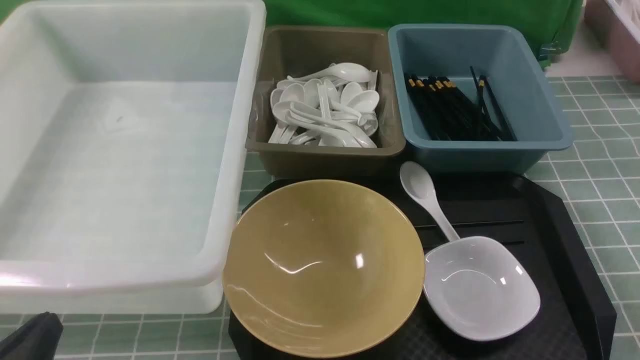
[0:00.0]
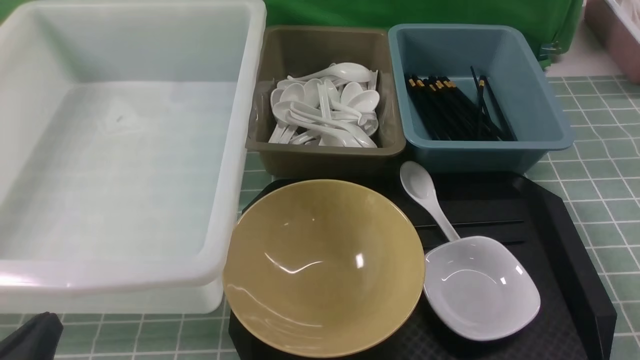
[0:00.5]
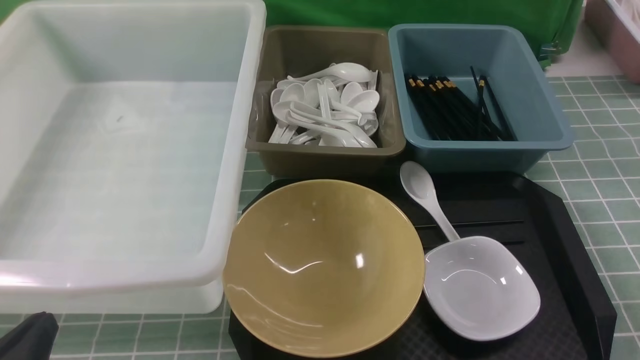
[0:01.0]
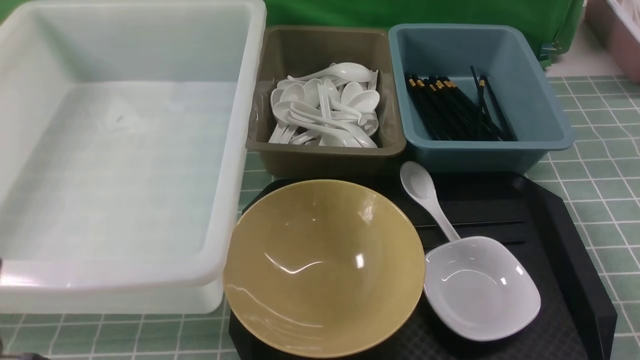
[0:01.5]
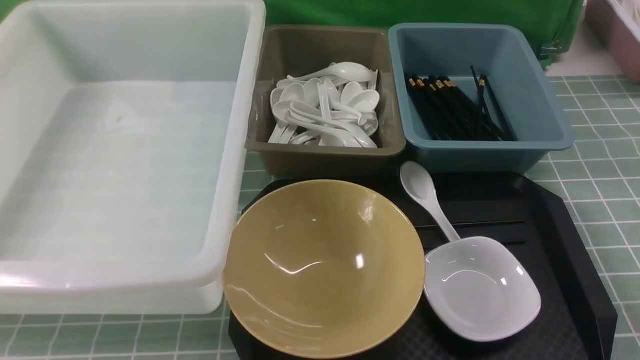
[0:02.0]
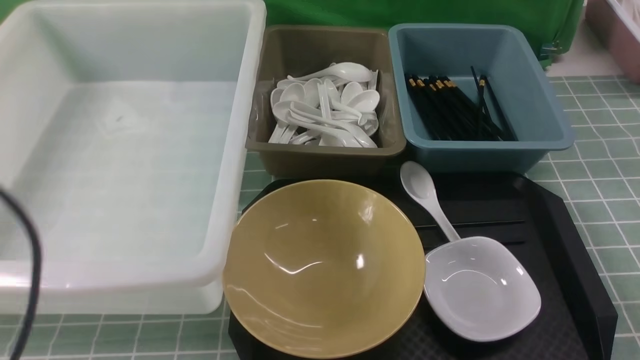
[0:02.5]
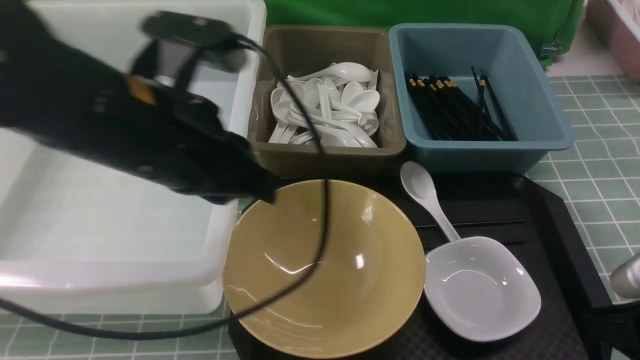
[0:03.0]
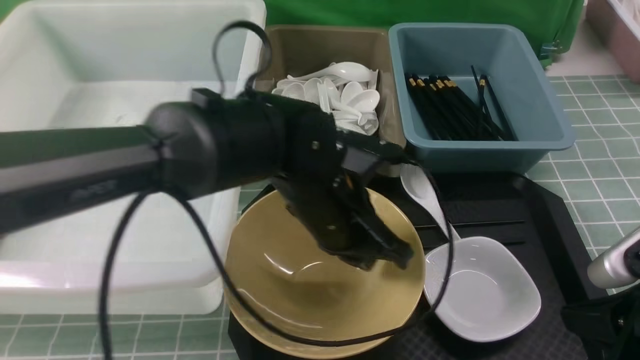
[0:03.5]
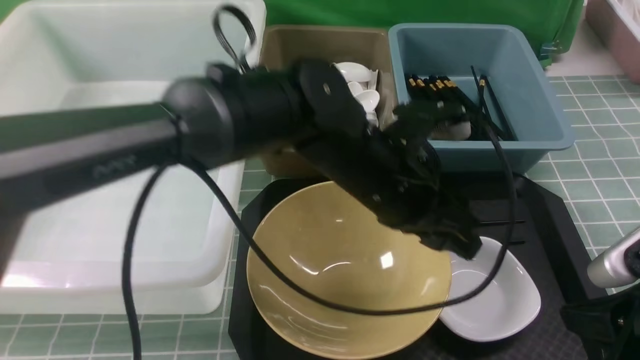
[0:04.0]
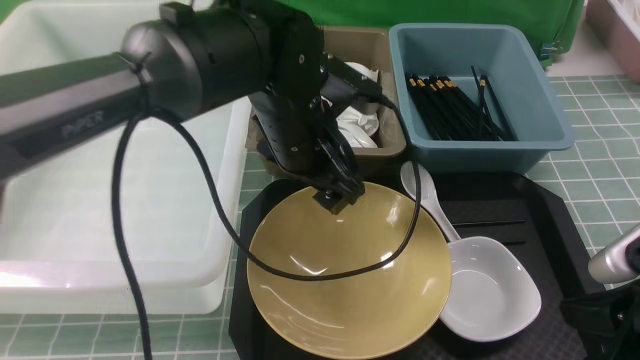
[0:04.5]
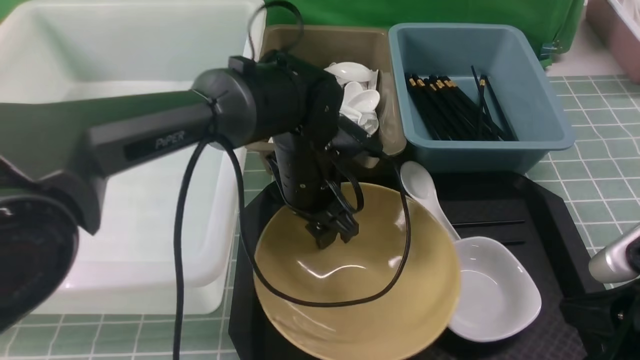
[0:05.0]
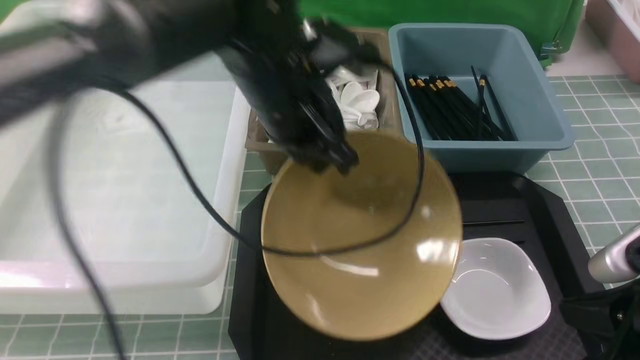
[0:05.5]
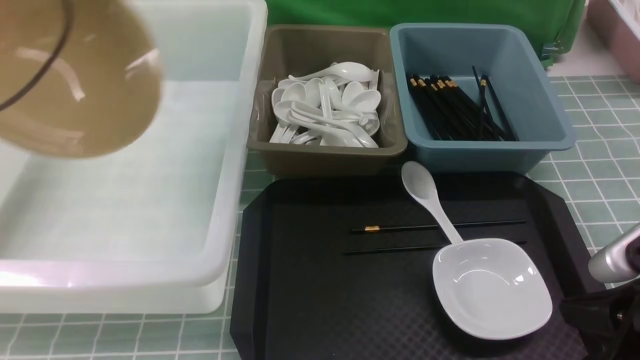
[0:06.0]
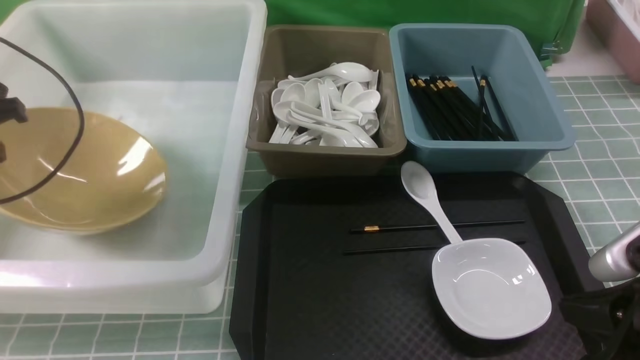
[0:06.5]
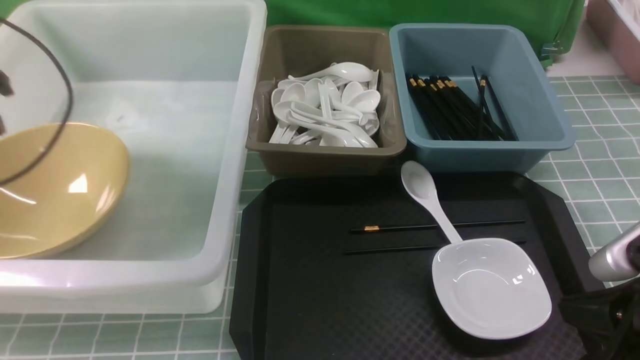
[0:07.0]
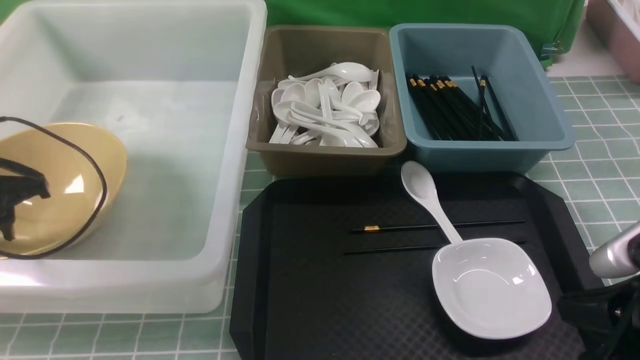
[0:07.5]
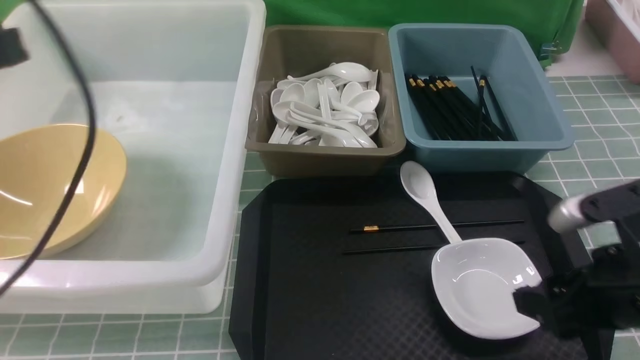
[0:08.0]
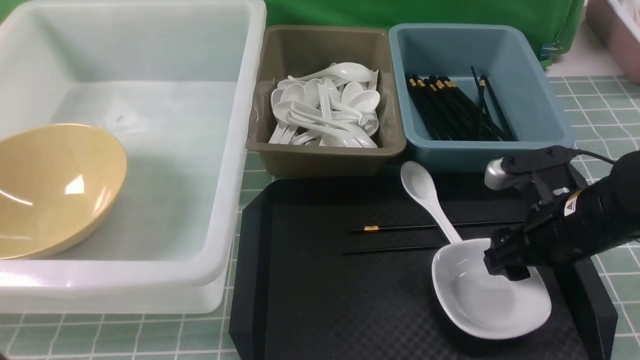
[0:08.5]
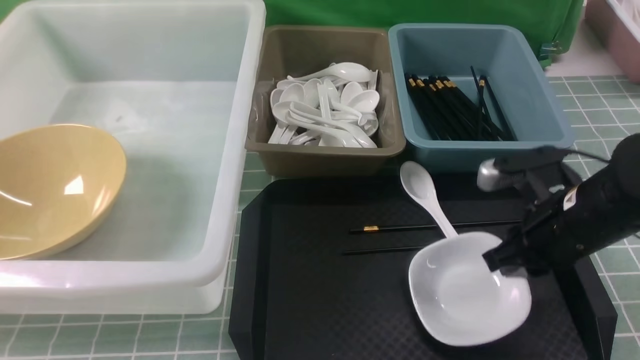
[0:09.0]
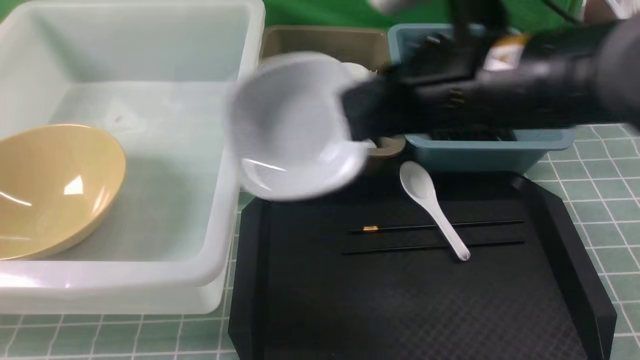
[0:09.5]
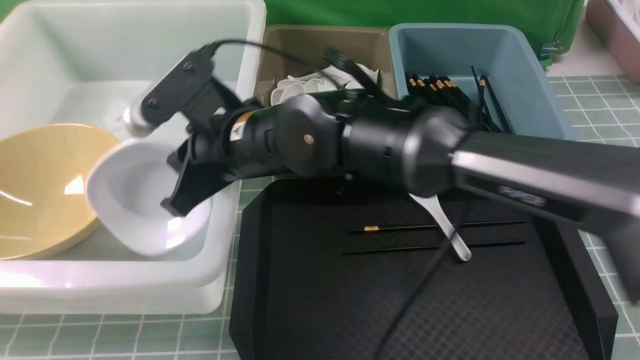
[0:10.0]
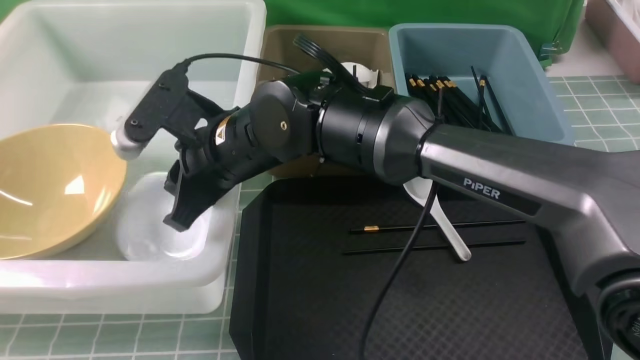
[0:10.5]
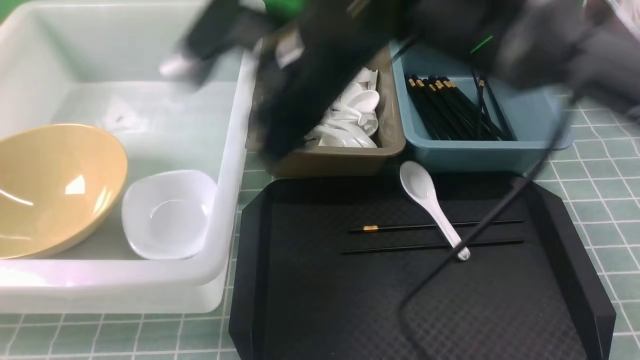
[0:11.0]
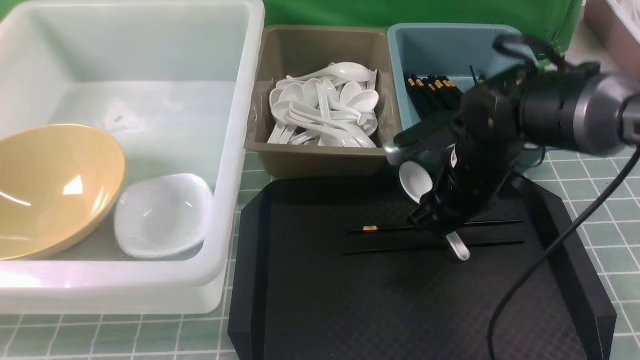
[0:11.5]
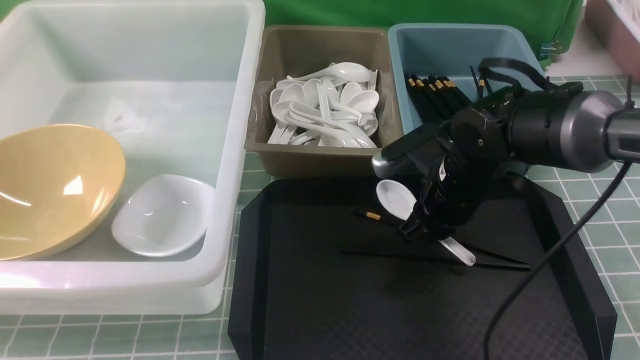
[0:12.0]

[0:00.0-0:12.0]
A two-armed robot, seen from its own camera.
Task of the whole recording: on blue table put chopsticks spoon bowls plates into blue grey white boxes.
Step, 0:00.0 to 0:05.0: use the left arm to grab the yellow noodle bowl on the left.
Step, 0:05.5 to 0:06.5: use the left arm to put the noodle bowl into the large storage box on the left.
Step, 0:07.0 to 0:09.0: use the right arm to grab the plate.
Step, 0:09.5 to 0:10.5: use the right arm to put the plate into the large storage box on the left.
Step, 0:11.0 to 0:12.0: use the right arm to grab the soup spoon in the middle.
0:00.0 to 0:02.0: The left gripper goes about 15 cm upward.
0:02.0 to 0:04.0: The right gripper goes roughly 10 cm forward and to the left, while the left gripper travels to the right and forward by some 40 cm, and opens its fingers.
0:04.0 to 0:06.0: The left gripper heads to the left, covering approximately 35 cm, and closes its fingers.
0:06.0 to 0:08.0: The right gripper travels forward by about 5 cm, and opens its fingers. The left gripper heads backward, covering roughly 20 cm, and opens, then closes once more.
0:08.0 to 0:10.0: The right gripper is displaced to the left by roughly 30 cm, and closes. Meanwhile the left gripper shifts some 15 cm backward and downward.
0:10.0 to 0:12.0: The right gripper heads to the right, covering some 20 cm.

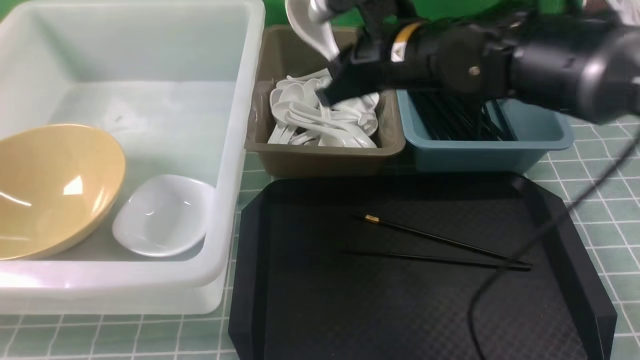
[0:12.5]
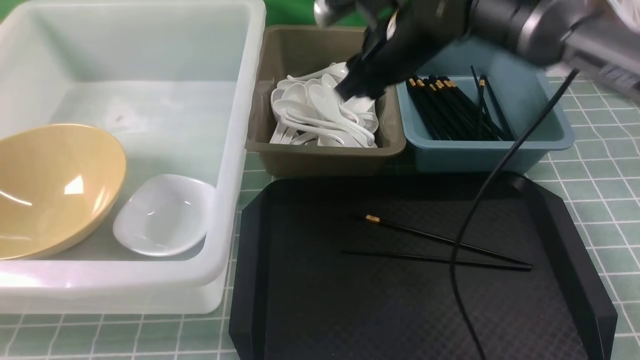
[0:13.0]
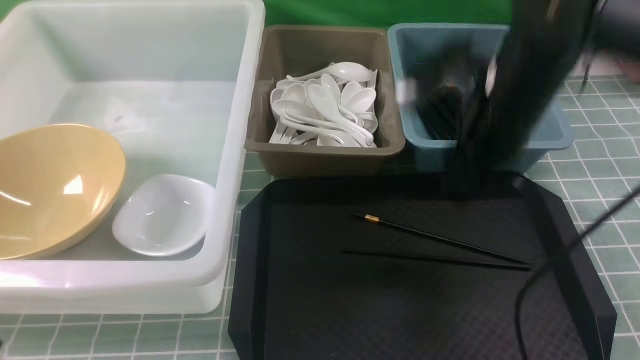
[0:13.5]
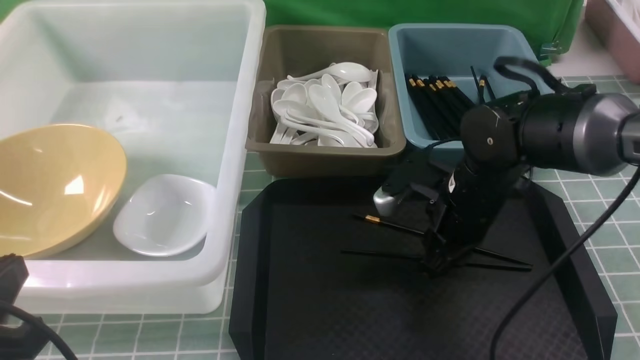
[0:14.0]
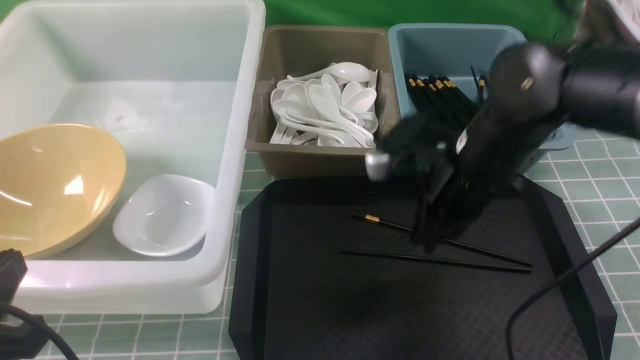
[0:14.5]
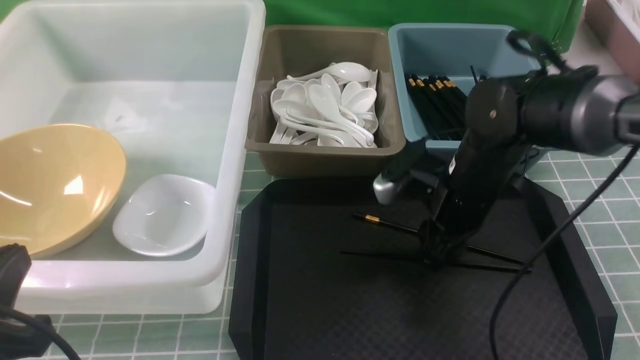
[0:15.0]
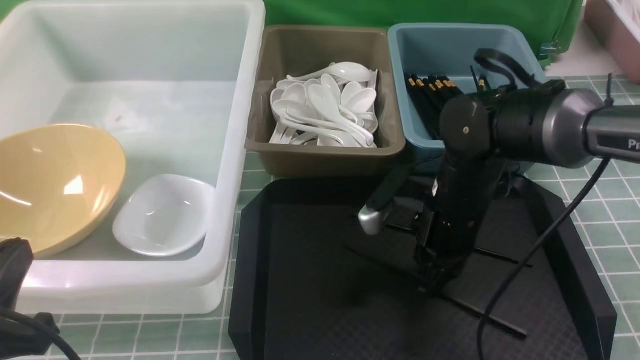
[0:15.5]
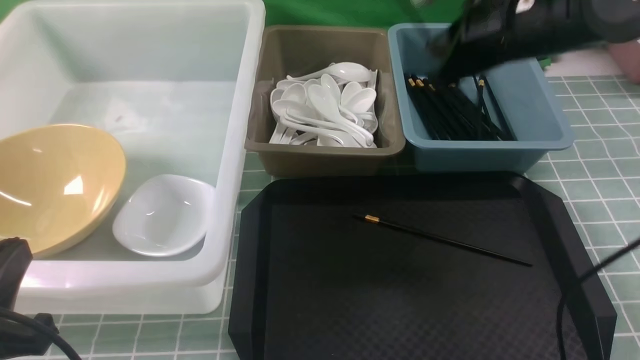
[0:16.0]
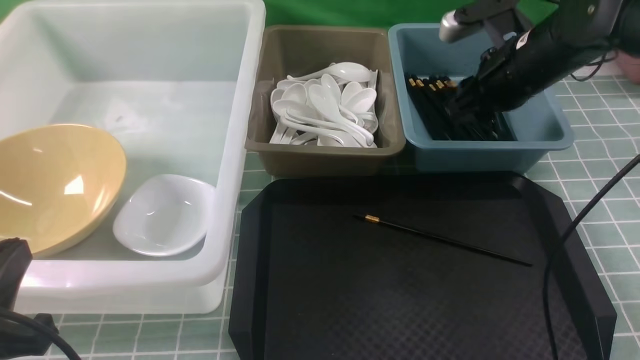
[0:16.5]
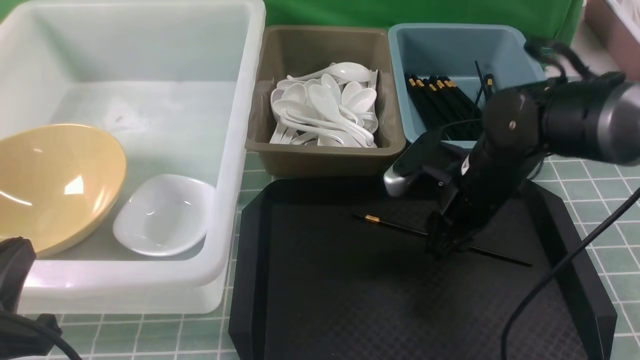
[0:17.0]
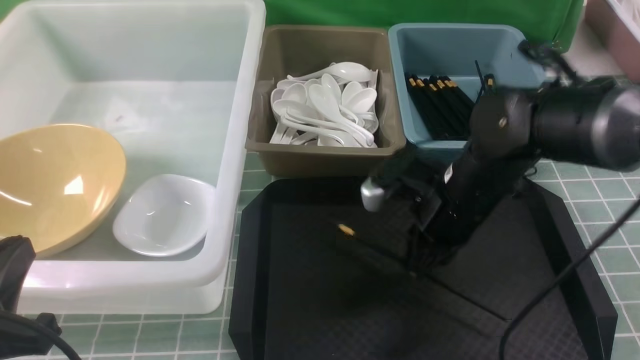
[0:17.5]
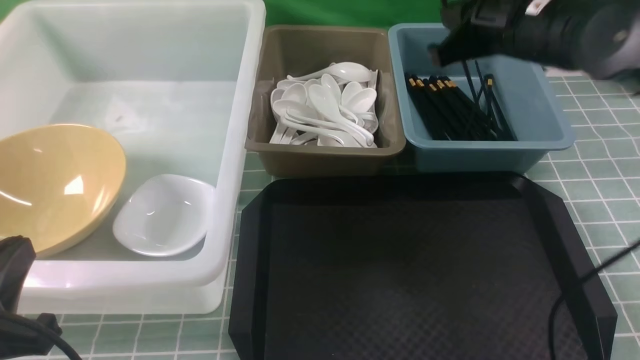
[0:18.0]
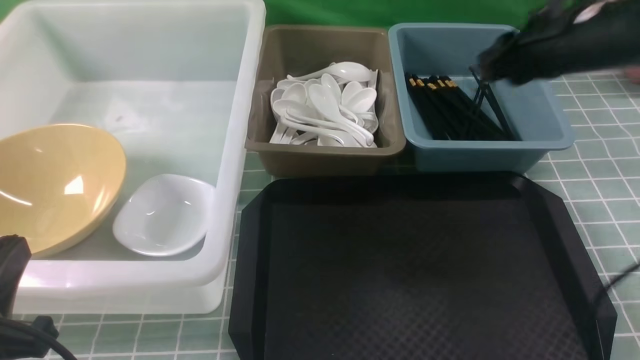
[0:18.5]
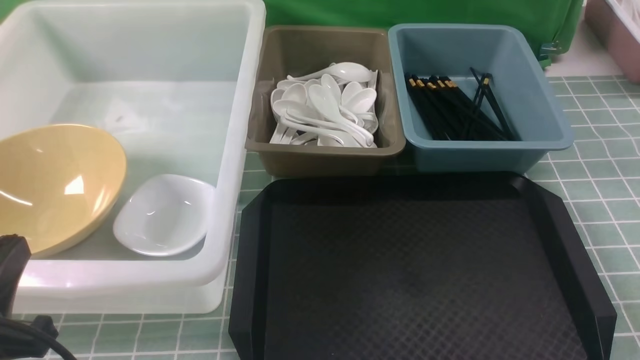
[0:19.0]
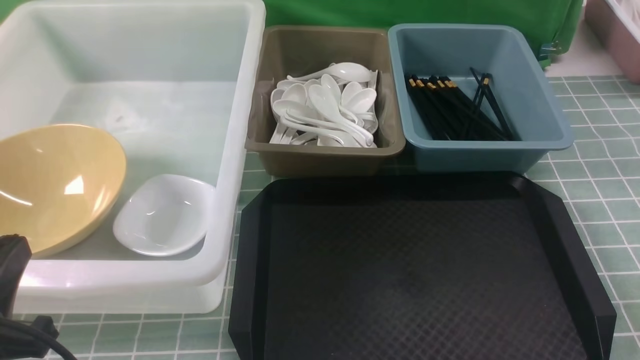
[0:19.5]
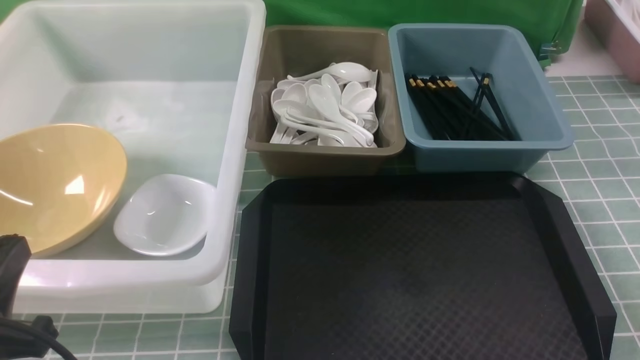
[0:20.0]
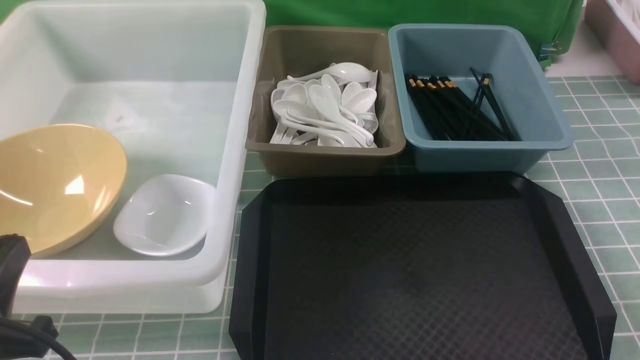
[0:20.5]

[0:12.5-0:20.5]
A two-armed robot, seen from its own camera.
Task of the whole recording: on blue table put chopsticks spoon bowls plates into blue grey white boxes.
Step, 0:12.5 to 0:13.0: use the right arm to put the soup spoon into the small storage box in the middle.
Step, 0:13.5 to 0:15.5: use the right arm to grab a chopstick.
Step, 0:16.0 to 0:16.5: use the right arm to put a chopstick into the small storage box on the right.
Step, 0:17.0 to 0:17.5: use the right arm to grab a chopstick.
0:12.5 to 0:14.5: The right gripper swings up and down, some 15 cm each way, with 2 reversals.
0:14.5 to 0:16.5: The right gripper goes up and down, roughly 10 cm each way, reversing 2 times, and opens.
0:16.5 to 0:18.5: The right gripper is displaced upward and backward by roughly 15 cm.
0:18.5 to 0:20.5: The right gripper heads backward and downward, covering approximately 35 cm.
